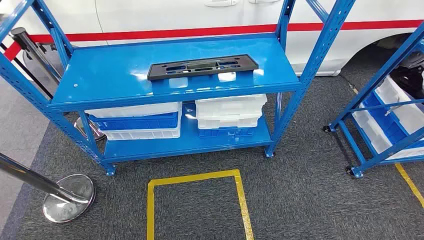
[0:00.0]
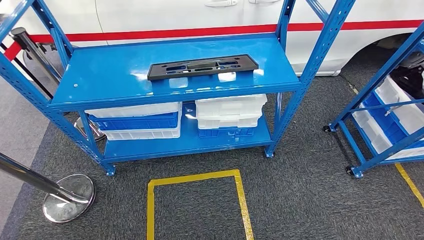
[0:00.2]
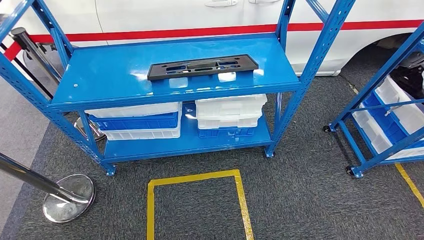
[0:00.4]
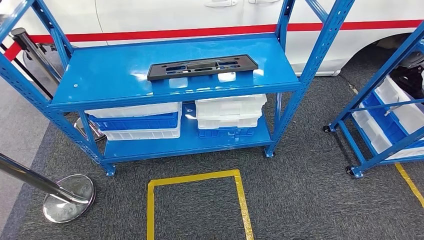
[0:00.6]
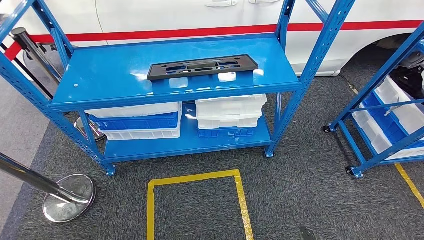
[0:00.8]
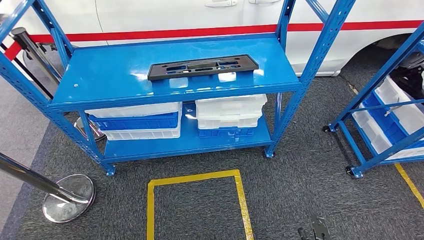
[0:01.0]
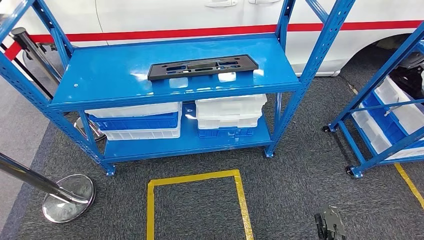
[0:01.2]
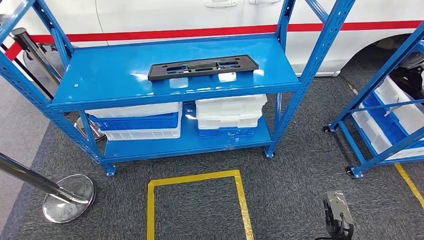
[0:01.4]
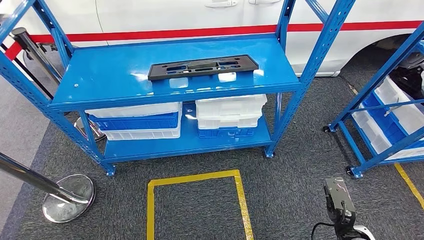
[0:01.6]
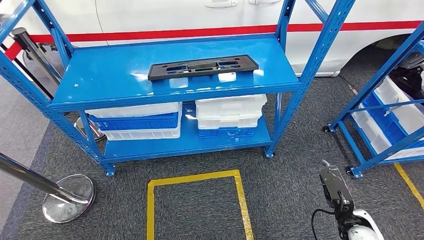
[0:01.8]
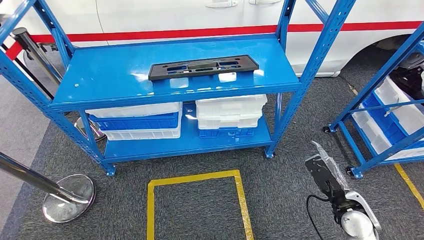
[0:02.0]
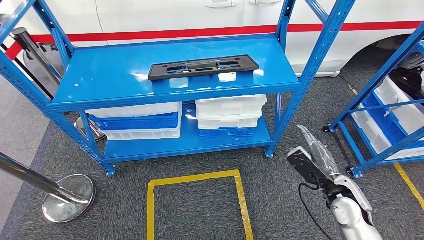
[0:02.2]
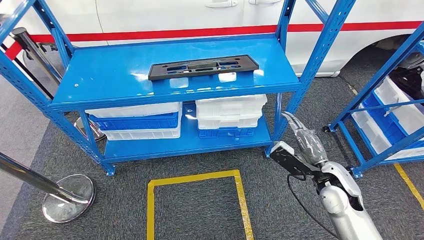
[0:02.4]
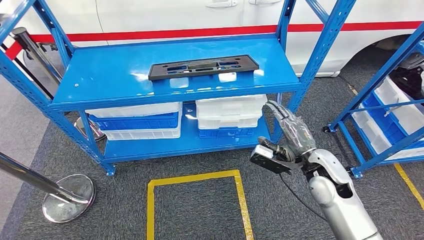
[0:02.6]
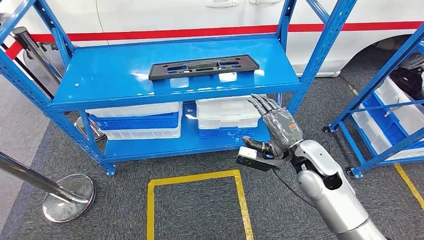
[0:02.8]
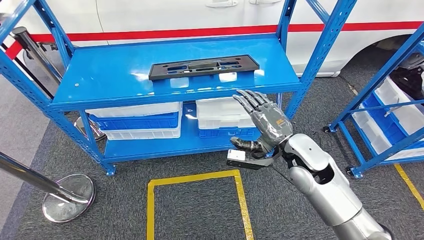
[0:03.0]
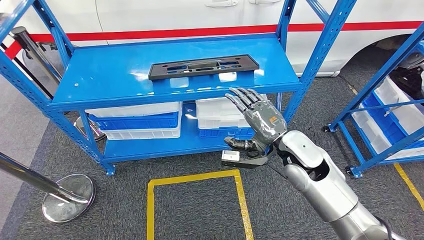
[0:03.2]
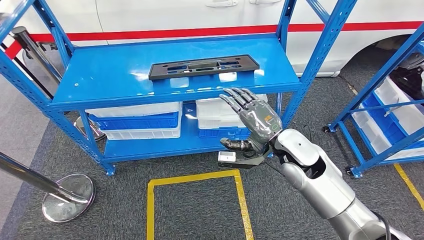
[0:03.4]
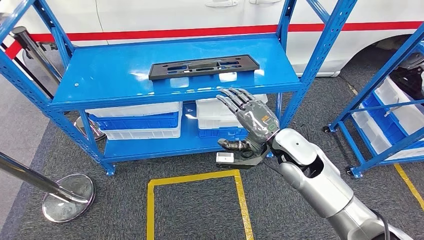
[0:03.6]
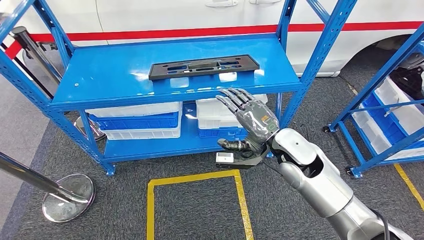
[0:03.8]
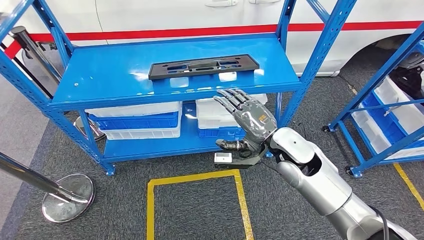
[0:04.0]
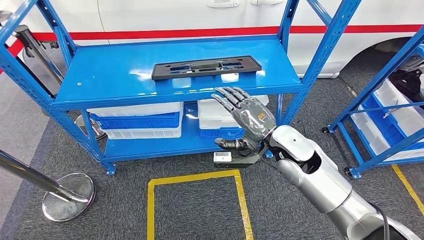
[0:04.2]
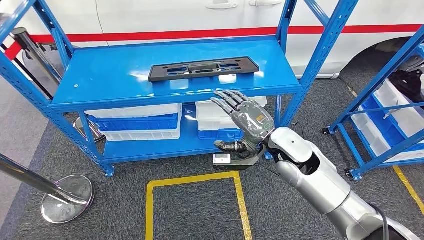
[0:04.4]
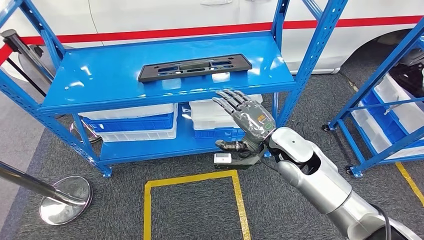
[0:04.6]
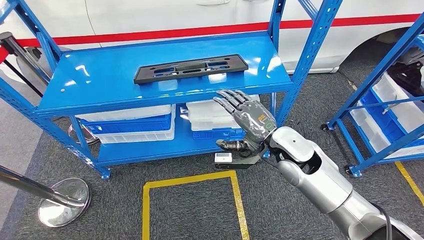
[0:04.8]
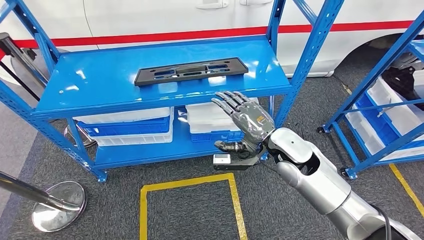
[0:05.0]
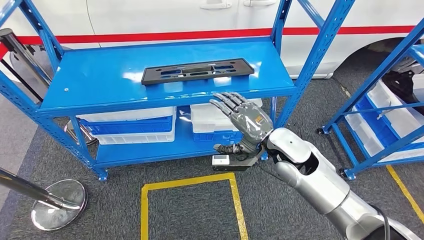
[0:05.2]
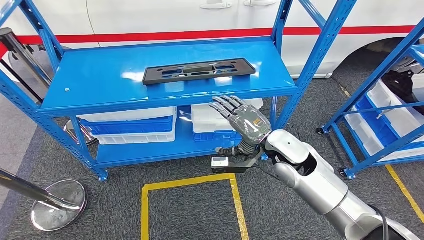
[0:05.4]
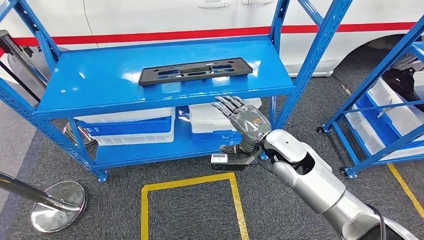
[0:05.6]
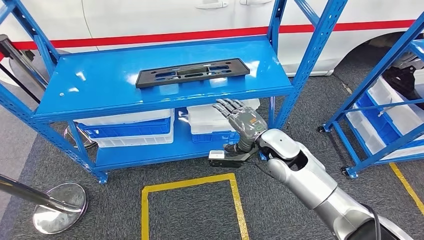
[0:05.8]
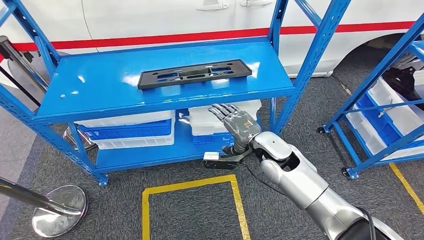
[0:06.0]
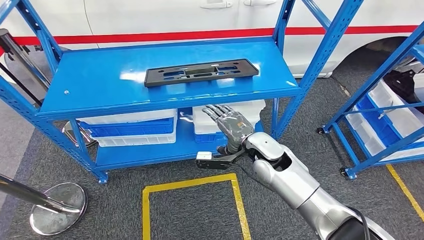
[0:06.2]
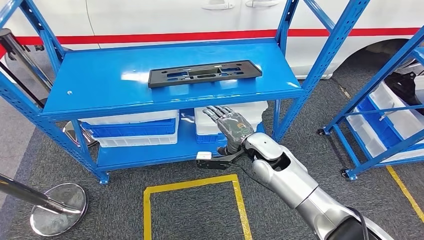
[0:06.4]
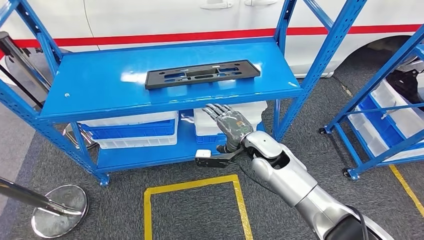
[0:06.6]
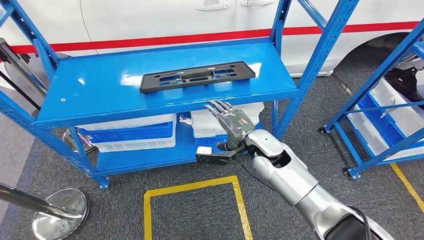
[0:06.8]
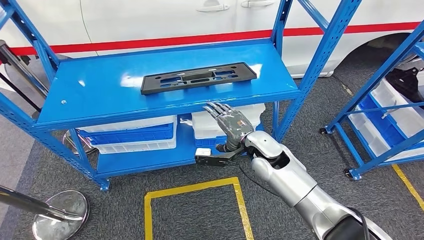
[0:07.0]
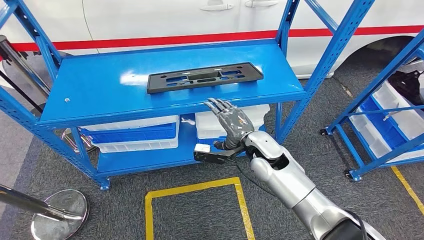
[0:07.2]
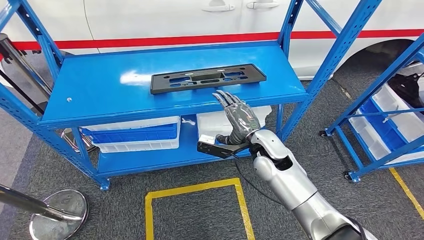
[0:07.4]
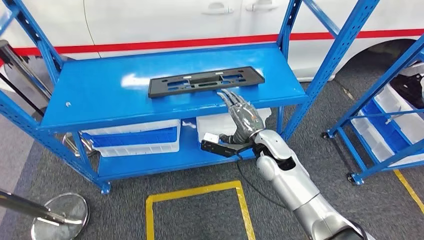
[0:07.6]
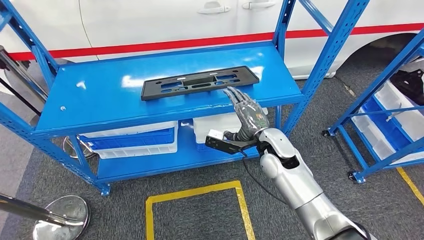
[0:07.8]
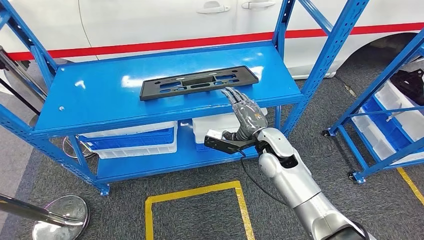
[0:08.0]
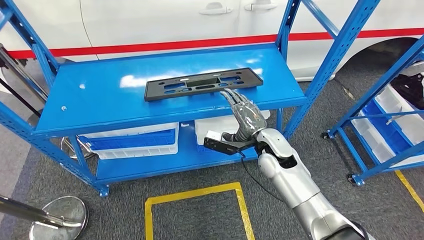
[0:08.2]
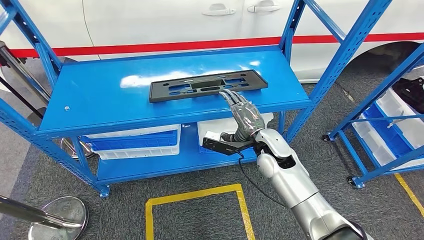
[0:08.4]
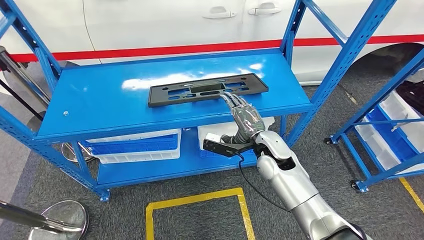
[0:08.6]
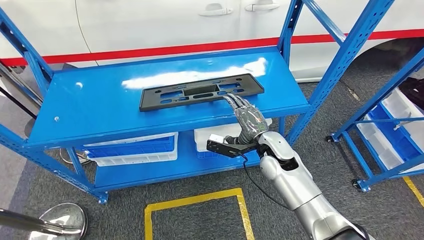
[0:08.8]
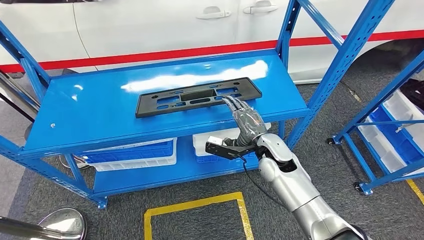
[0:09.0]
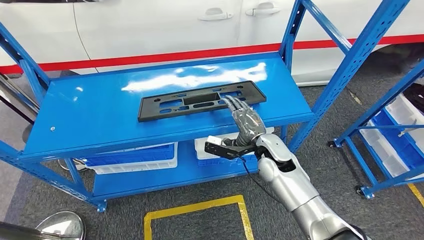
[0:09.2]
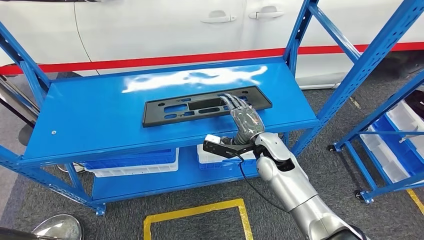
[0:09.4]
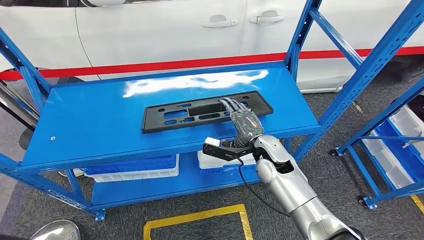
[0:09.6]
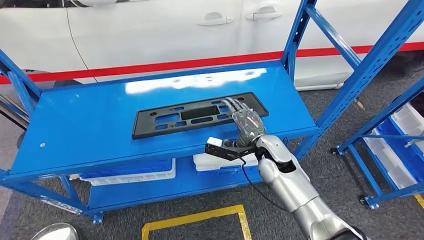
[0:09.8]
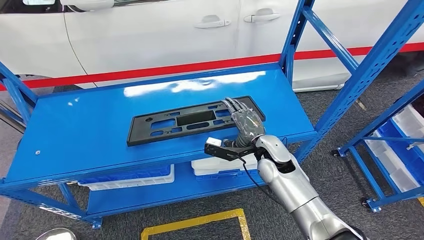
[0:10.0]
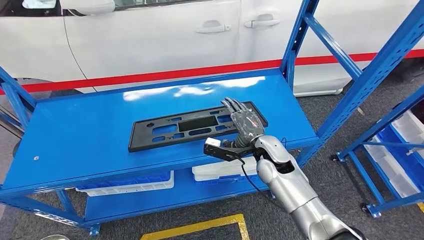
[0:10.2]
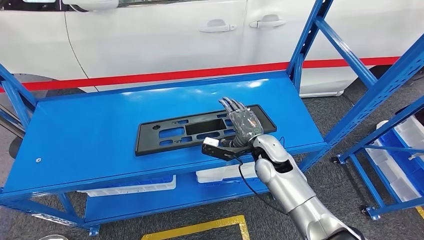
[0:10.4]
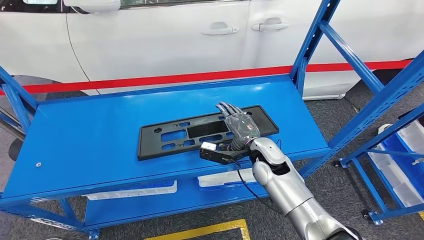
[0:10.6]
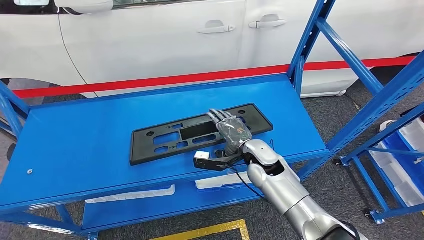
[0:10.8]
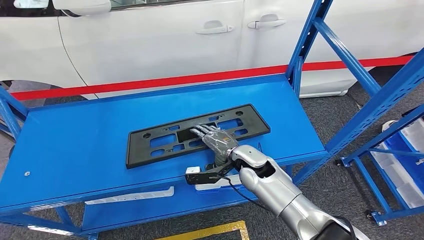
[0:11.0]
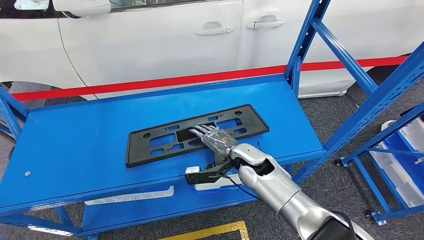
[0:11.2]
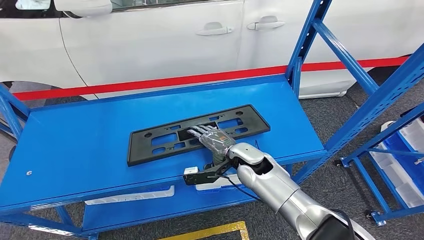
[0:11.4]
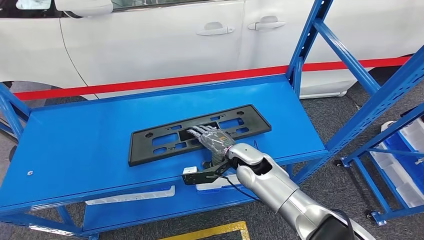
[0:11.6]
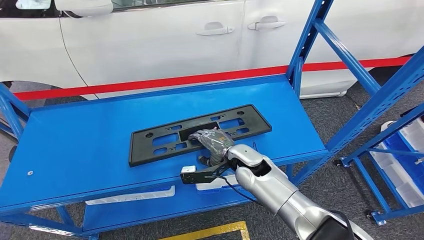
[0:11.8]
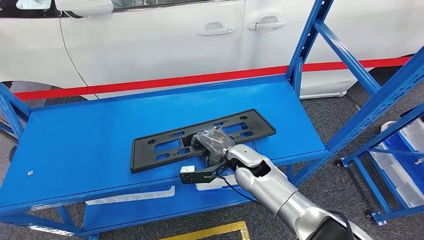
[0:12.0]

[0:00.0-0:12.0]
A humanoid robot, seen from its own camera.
0:01.6 to 0:03.0: The right hand moves upward, forward and to the left, approximately 25 cm.

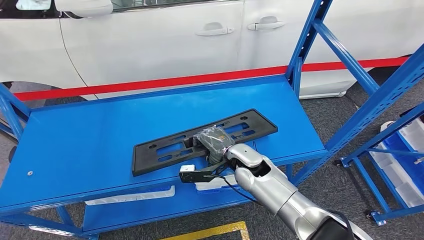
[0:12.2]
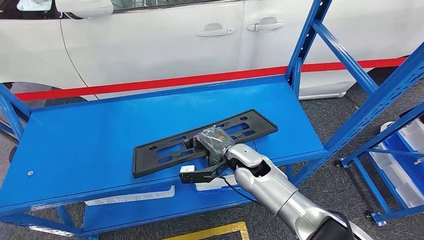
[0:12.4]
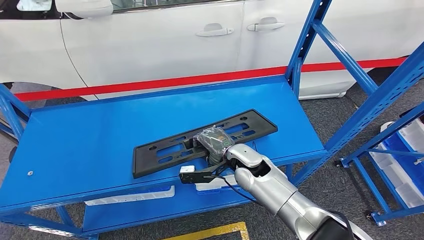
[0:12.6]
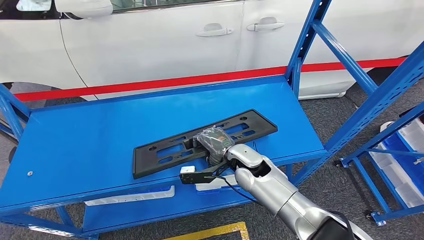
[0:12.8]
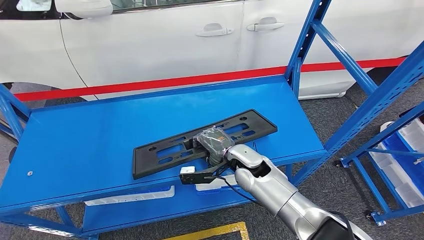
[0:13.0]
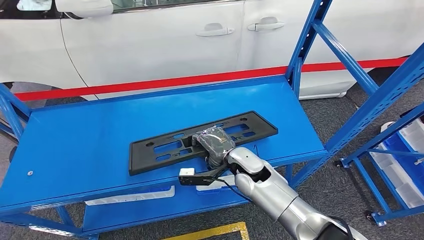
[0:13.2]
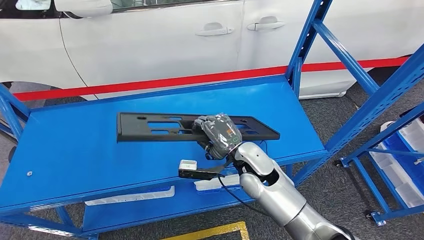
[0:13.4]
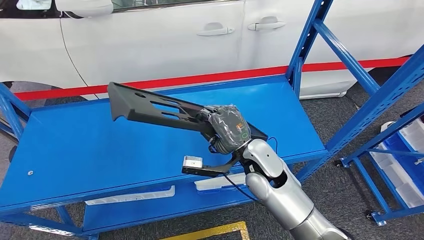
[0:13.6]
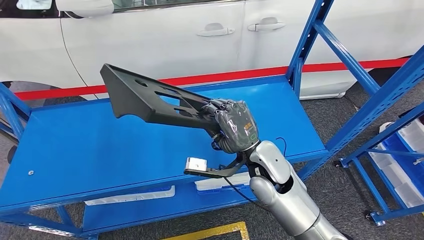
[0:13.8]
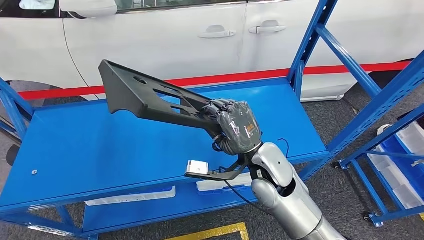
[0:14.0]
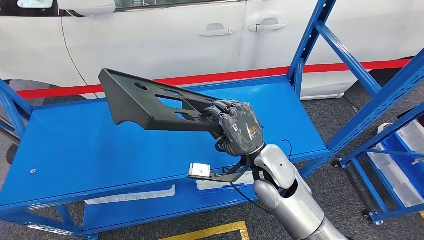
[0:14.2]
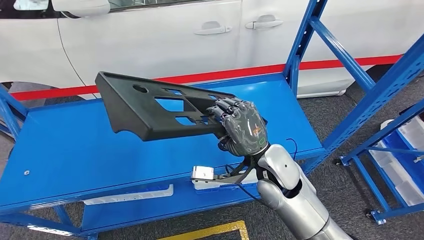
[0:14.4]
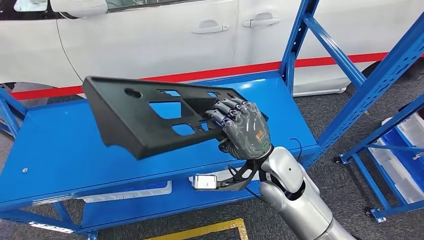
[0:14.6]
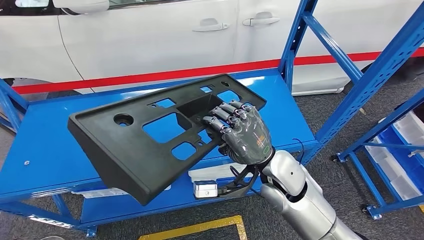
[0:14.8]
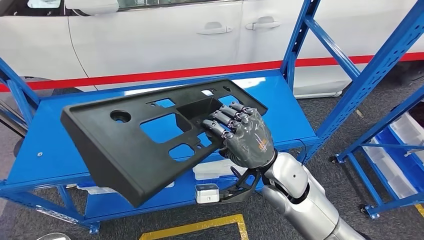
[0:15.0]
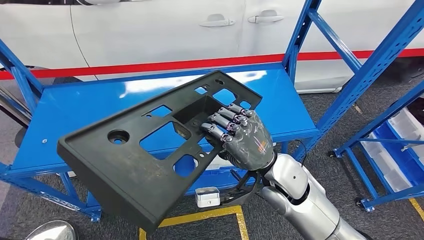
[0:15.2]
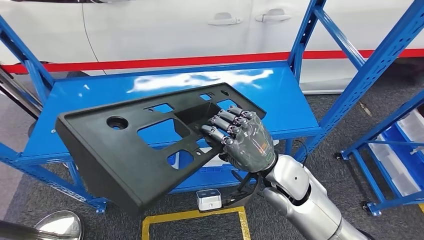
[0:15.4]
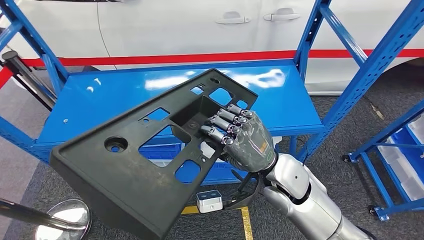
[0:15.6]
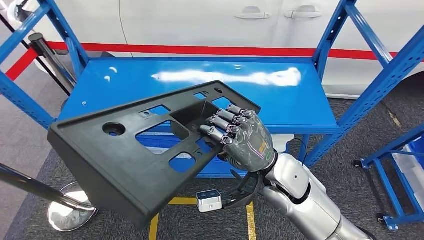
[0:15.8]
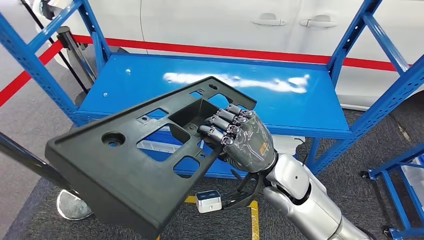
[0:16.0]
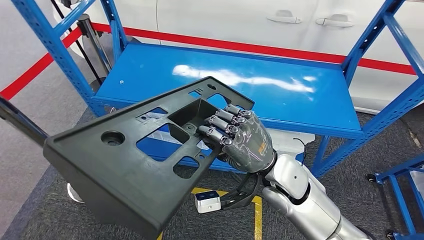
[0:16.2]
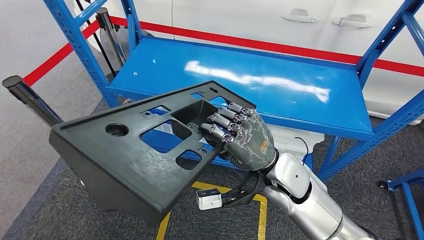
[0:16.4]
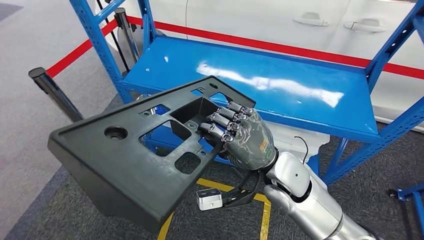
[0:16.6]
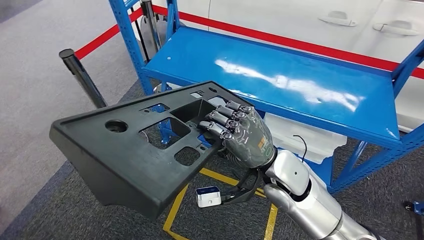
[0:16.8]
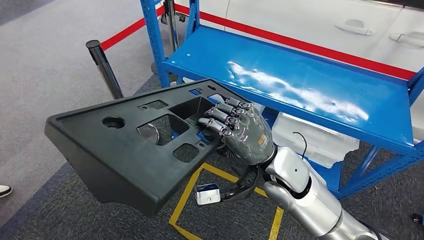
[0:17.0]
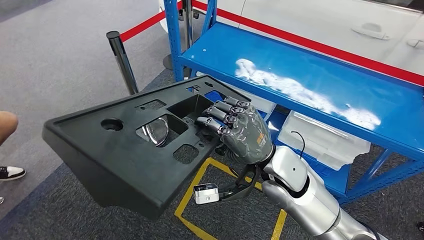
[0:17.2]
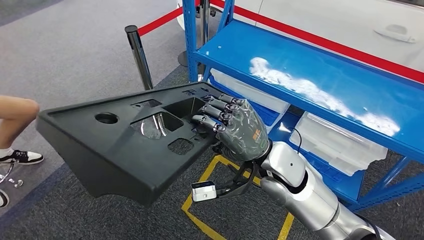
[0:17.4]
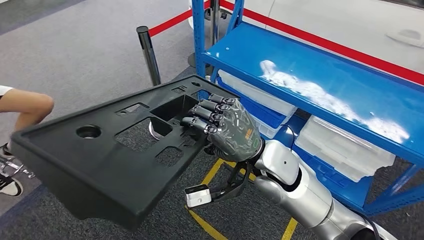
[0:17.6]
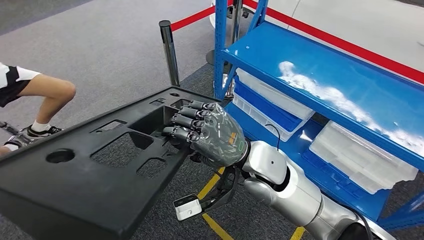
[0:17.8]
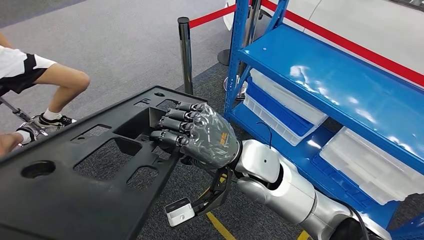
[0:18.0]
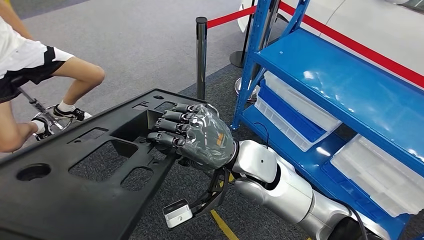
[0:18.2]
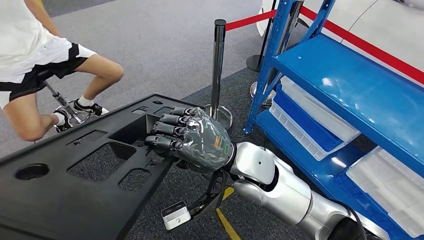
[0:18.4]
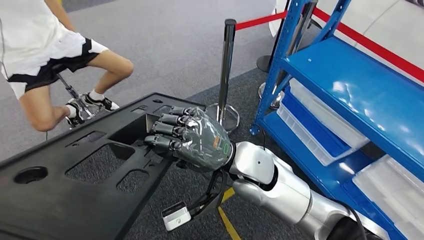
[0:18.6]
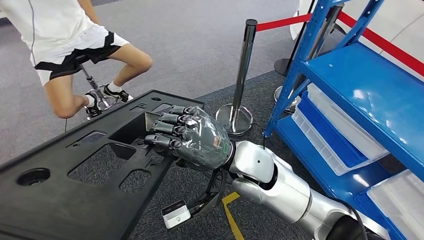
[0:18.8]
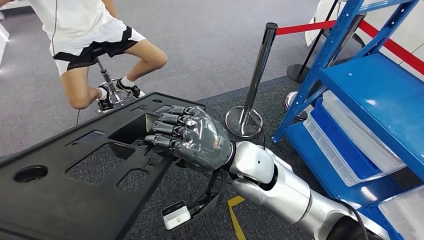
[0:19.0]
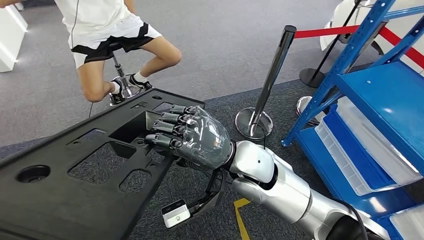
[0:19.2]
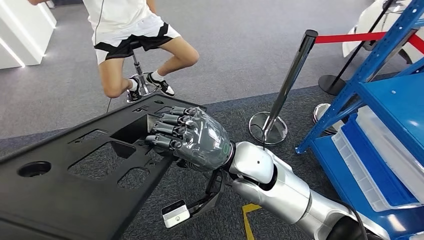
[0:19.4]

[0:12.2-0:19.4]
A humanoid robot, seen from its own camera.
Step, 0:12.2 to 0:15.8: Pick up the large material from the shelf.
0:12.2 to 0:13.6: The right hand moves upward, some 5 cm.
